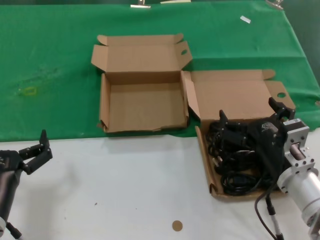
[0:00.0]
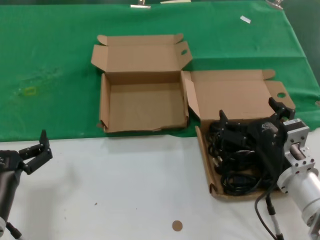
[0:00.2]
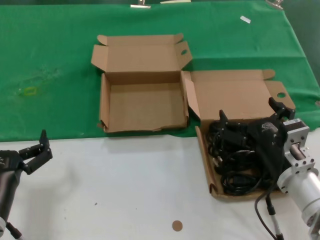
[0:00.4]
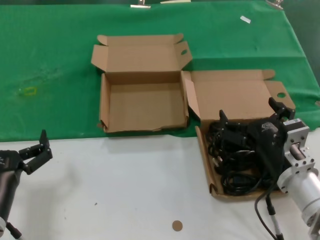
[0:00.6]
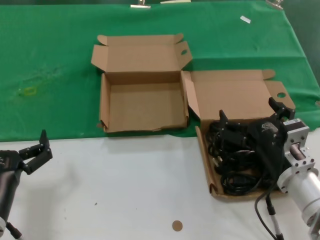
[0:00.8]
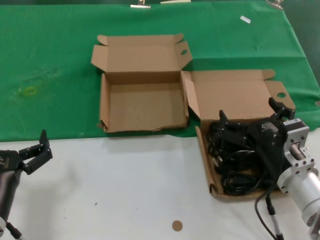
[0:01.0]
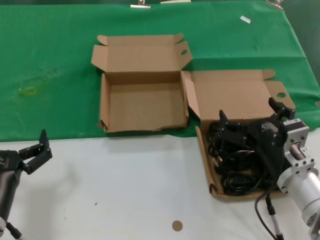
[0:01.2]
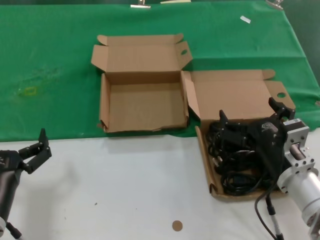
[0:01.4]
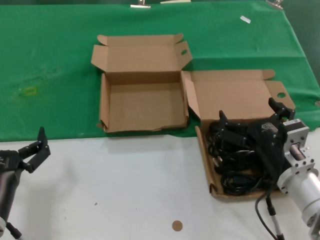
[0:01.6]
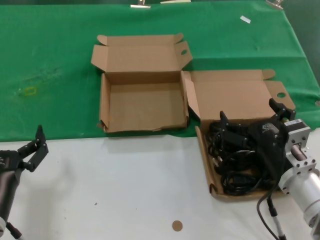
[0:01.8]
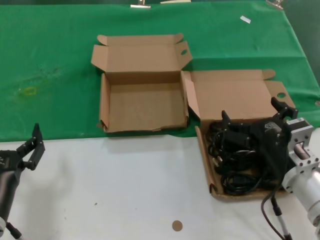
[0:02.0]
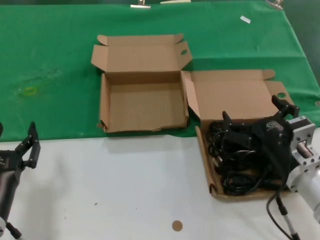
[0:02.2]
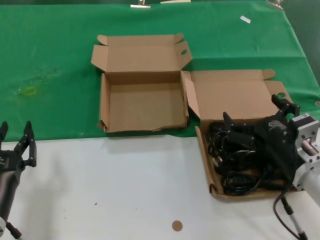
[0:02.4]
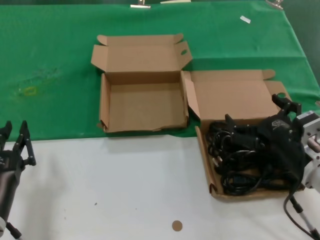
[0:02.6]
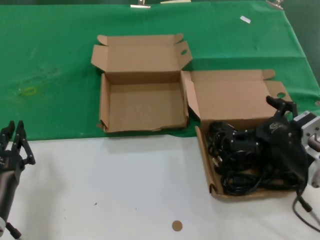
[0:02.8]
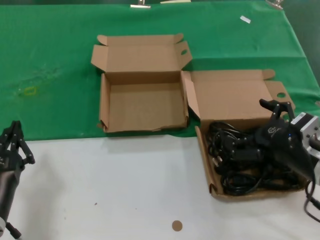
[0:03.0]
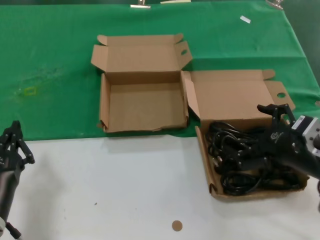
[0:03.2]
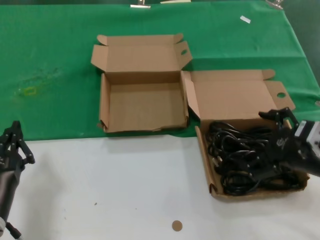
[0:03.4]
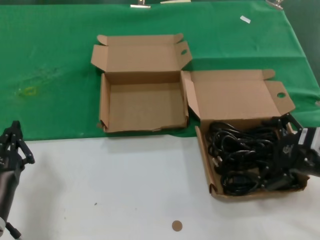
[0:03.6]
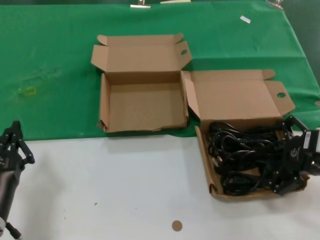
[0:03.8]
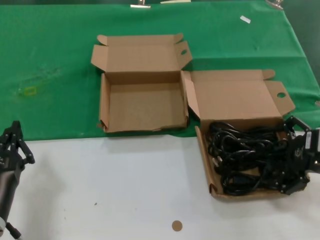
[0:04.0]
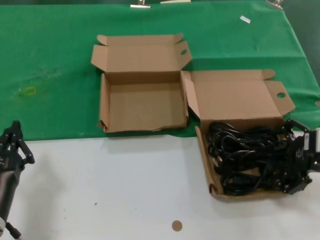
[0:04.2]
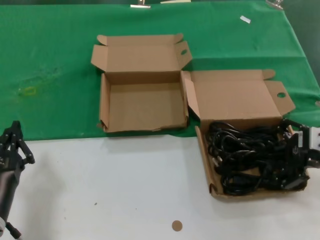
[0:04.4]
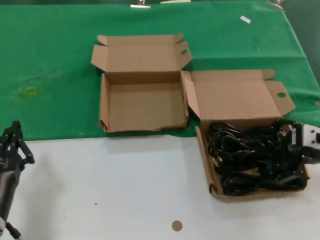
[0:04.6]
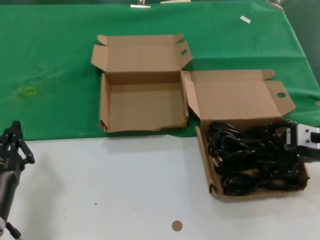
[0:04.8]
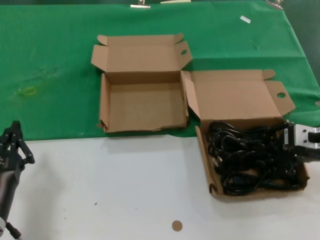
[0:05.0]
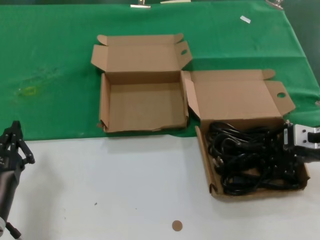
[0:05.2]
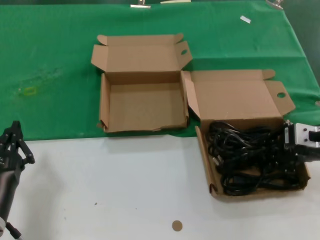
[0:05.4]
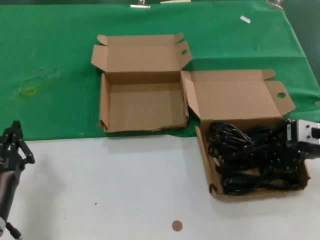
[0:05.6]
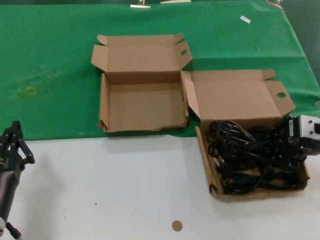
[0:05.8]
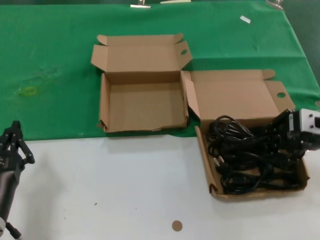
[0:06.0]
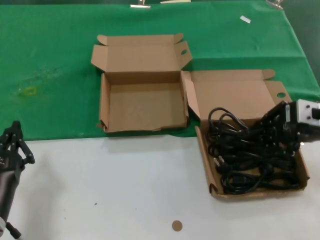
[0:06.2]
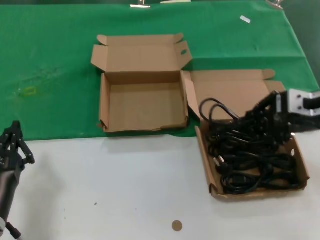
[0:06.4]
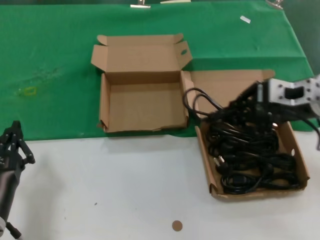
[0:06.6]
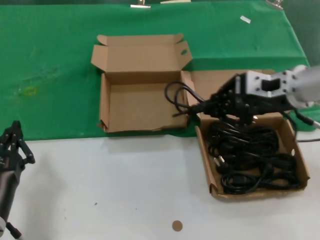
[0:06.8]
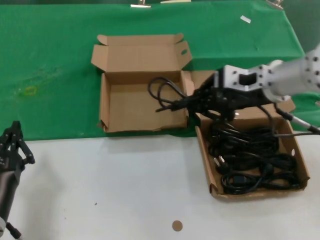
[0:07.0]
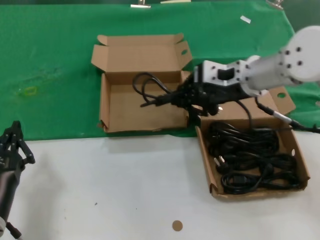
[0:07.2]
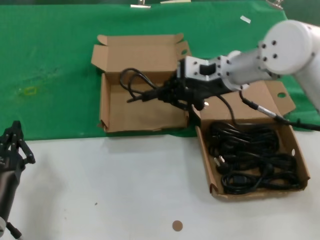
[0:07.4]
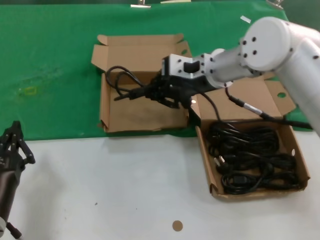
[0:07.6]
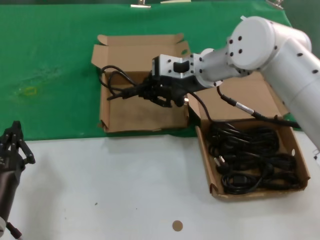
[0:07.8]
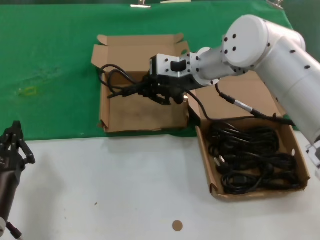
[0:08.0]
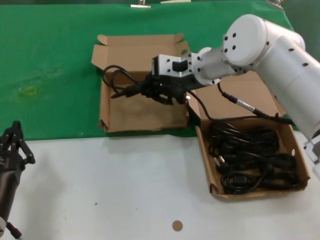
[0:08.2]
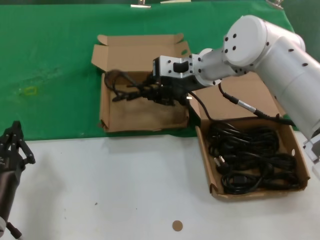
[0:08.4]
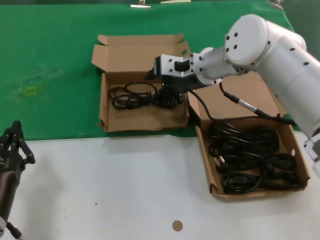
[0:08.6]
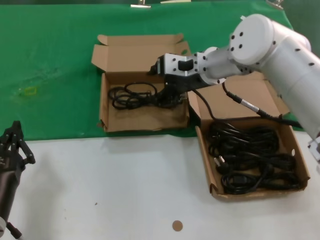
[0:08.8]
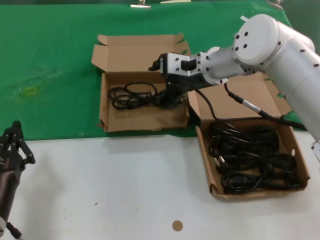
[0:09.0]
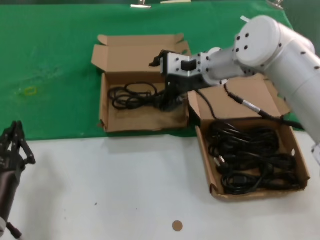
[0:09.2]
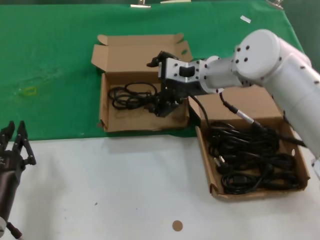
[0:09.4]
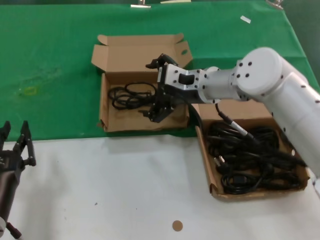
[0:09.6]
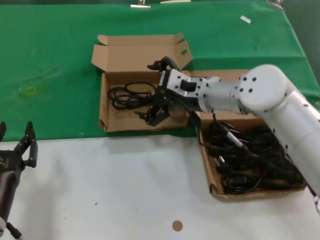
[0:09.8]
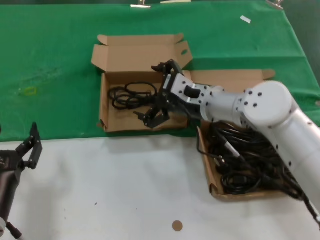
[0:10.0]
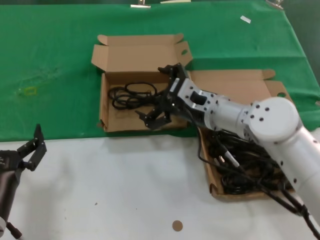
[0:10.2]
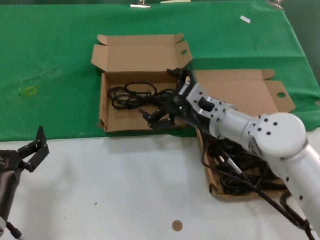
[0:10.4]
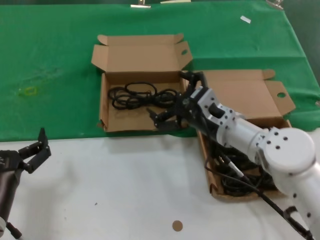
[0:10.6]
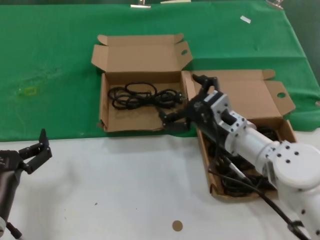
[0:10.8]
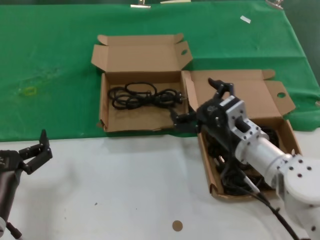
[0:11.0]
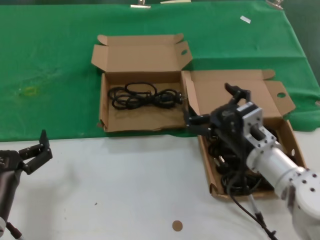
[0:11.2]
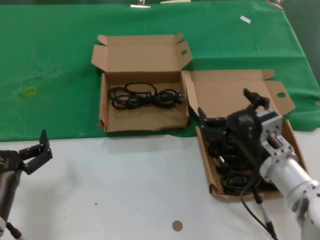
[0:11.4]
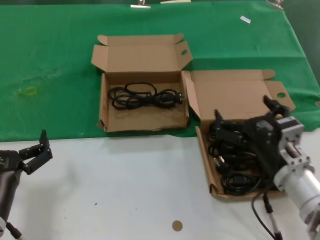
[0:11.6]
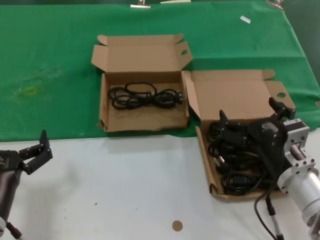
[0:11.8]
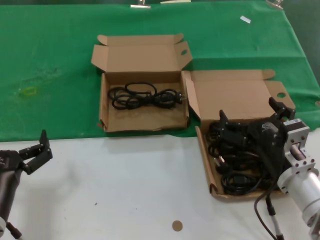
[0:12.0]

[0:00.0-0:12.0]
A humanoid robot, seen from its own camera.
Task of the whole recording: take the parts from the box containing them and put them into an empty box.
Step, 0:00.0 to 0:05.2: Grasp the data cable.
Step, 0:05.4 to 0:08.4: Place the data cable in the another box.
0:00.0 to 0:01.6: Neither hand changes place.
0:01.6 to 0:03.0: The right hand shifts roughly 5 cm to the right.
0:03.0 to 0:04.4: The right hand goes approximately 10 cm to the right and upward.
0:04.4 to 0:06.0: The right hand changes place by some 5 cm.
0:06.0 to 0:07.6: The right hand goes approximately 25 cm to the left and forward.
0:07.6 to 0:09.0: The hands move only a little.
0:09.0 to 0:10.4: The right hand heads downward and backward, covering some 15 cm.
0:10.4 to 0:12.0: The right hand goes approximately 20 cm backward, to the right and downward.

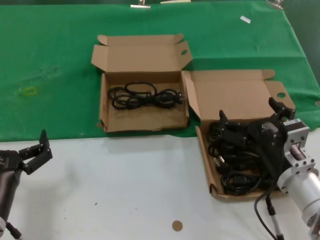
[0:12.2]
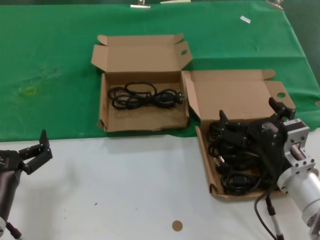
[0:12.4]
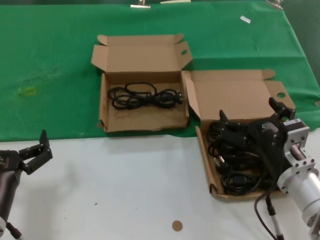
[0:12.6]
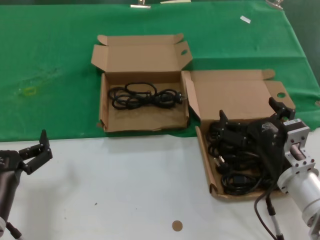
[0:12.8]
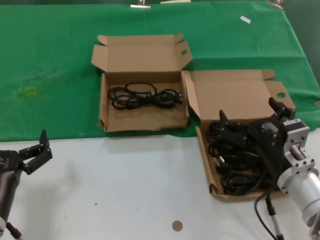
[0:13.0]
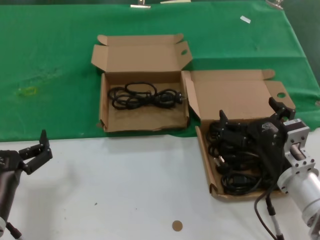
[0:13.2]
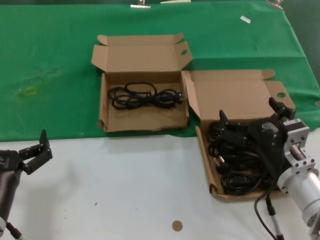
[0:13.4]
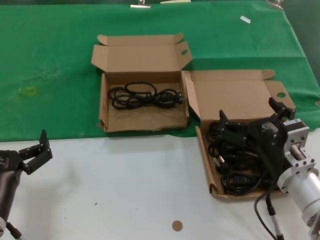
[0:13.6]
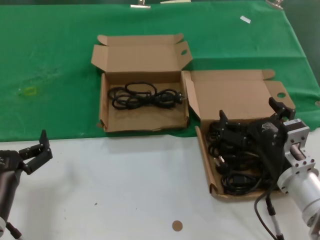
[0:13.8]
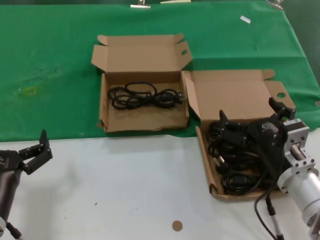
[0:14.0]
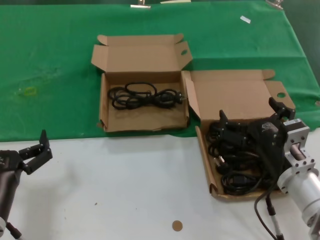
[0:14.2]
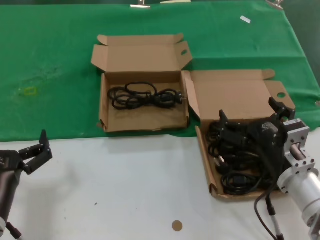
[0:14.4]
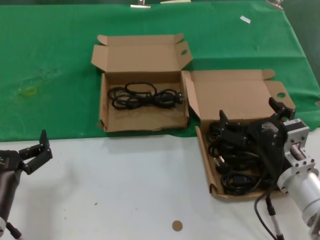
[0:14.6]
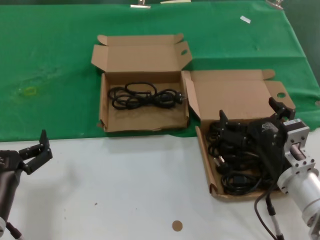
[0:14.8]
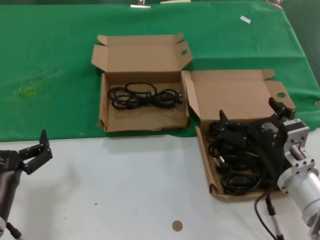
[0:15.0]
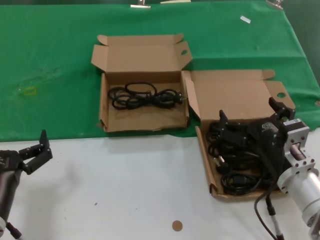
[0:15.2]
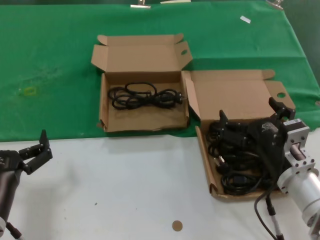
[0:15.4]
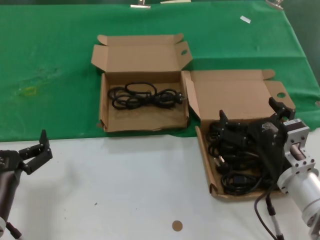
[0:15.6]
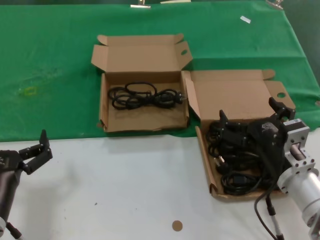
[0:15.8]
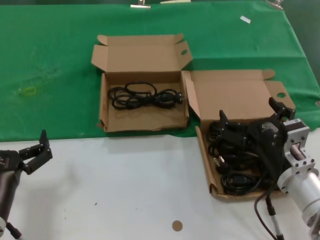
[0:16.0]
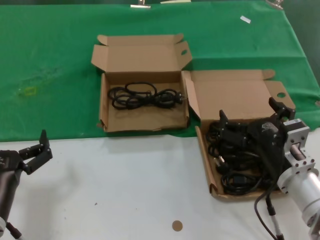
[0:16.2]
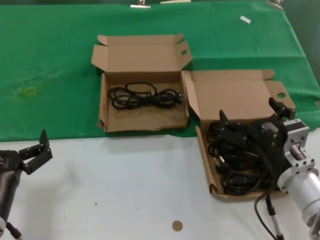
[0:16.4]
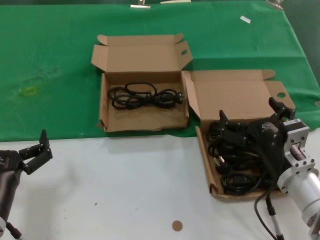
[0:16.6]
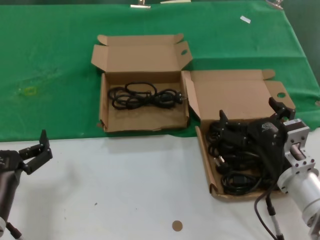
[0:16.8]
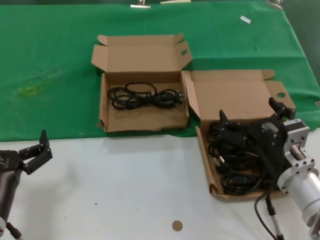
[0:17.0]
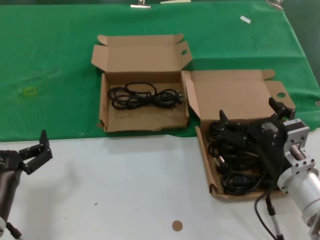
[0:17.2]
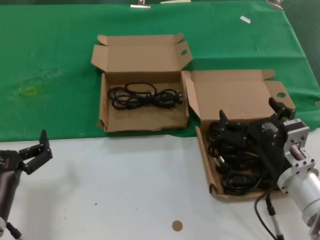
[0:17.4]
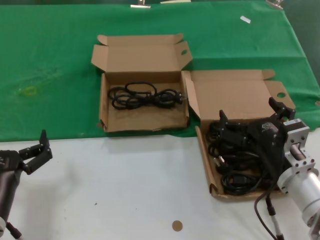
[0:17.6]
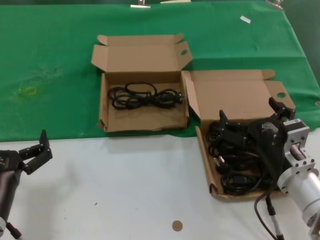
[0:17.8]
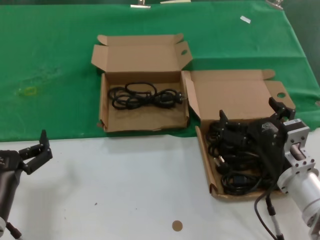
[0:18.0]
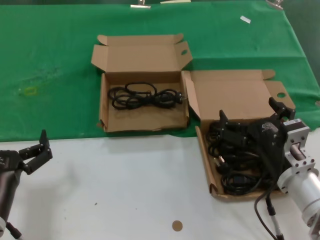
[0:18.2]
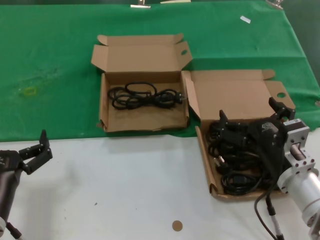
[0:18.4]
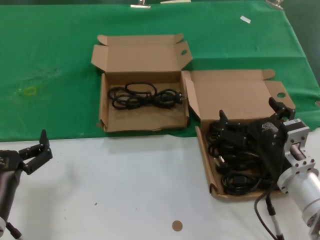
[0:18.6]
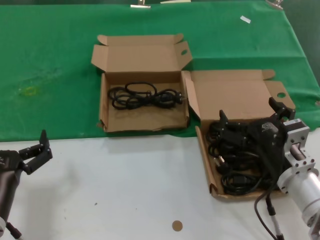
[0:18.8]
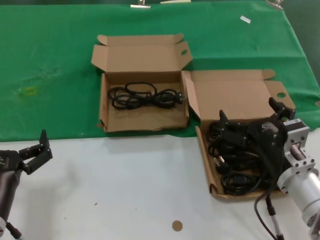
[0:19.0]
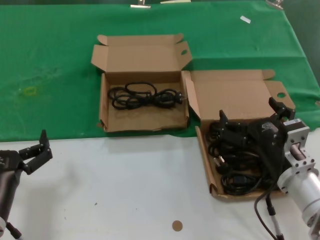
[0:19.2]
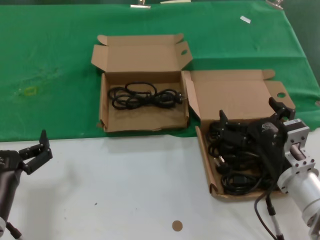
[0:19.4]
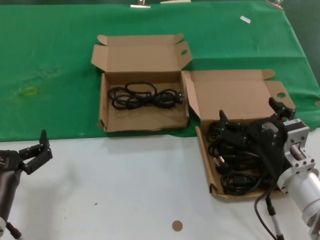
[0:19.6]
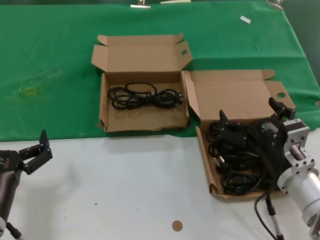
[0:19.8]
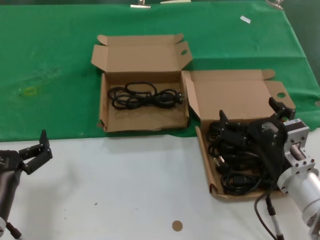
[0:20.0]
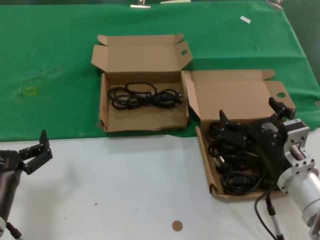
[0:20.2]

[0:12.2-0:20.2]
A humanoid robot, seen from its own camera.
Task of the whole recording: take the parts from the box containing them and put them into an empty box.
0:12.2 to 0:20.2: Both hands stay about where they are.
